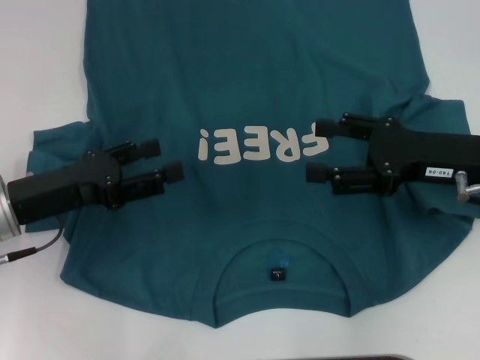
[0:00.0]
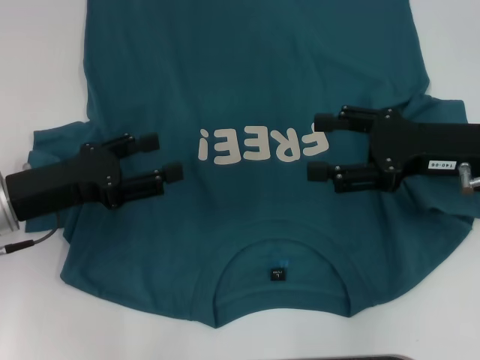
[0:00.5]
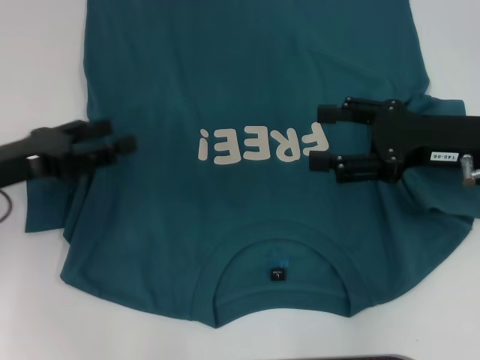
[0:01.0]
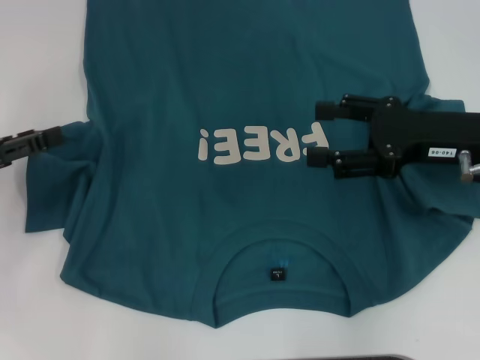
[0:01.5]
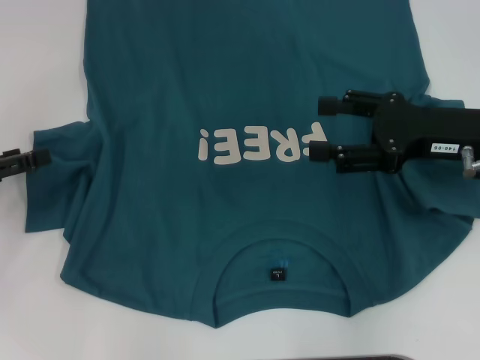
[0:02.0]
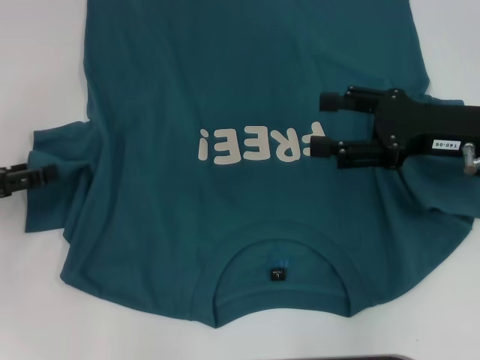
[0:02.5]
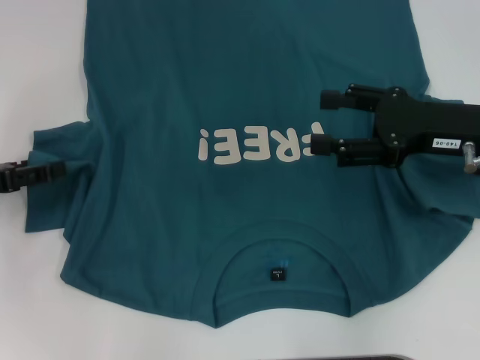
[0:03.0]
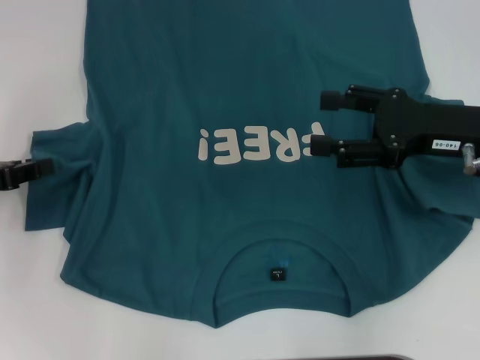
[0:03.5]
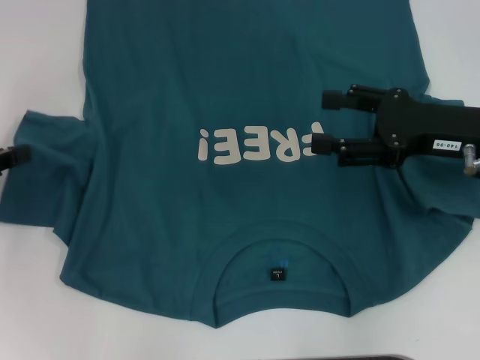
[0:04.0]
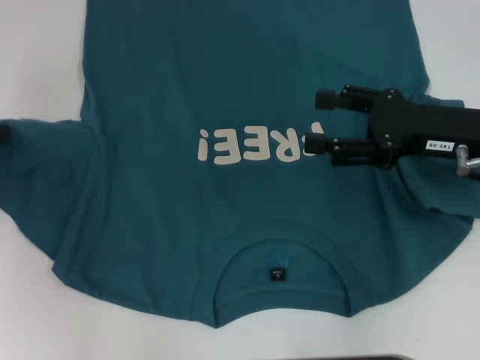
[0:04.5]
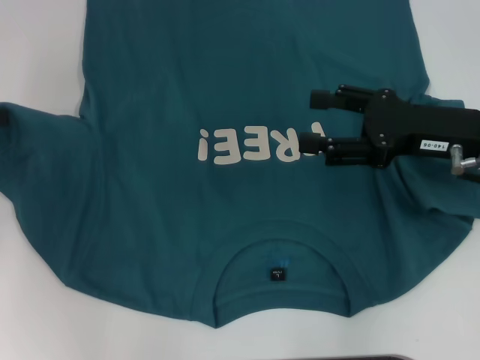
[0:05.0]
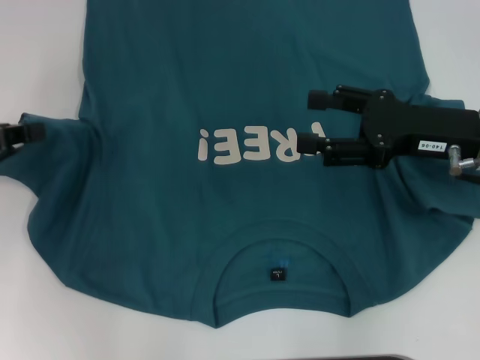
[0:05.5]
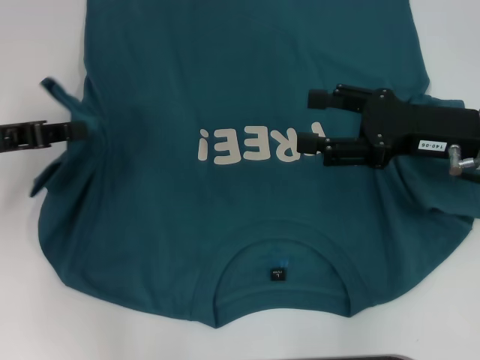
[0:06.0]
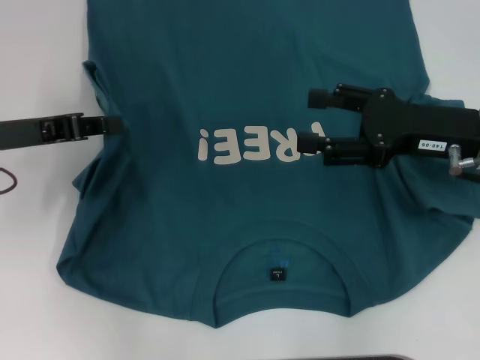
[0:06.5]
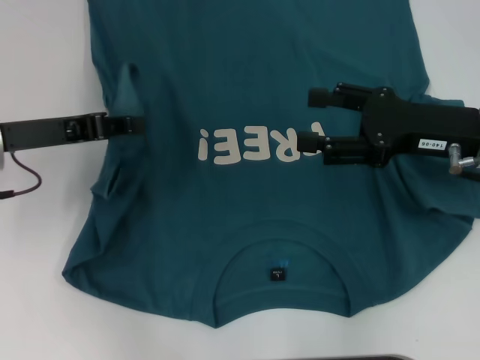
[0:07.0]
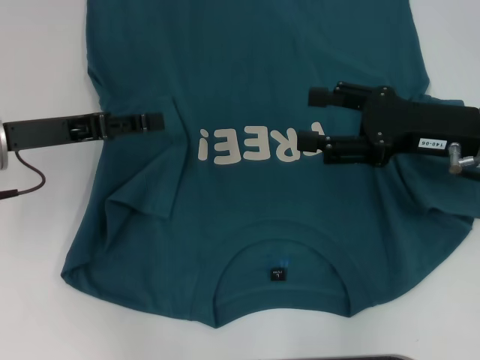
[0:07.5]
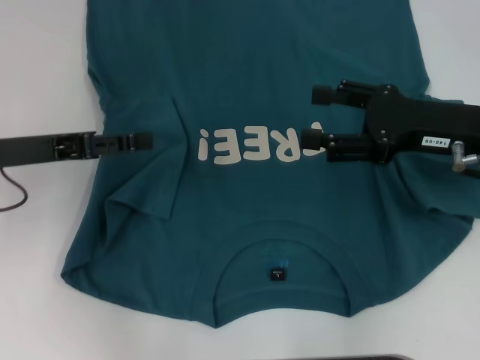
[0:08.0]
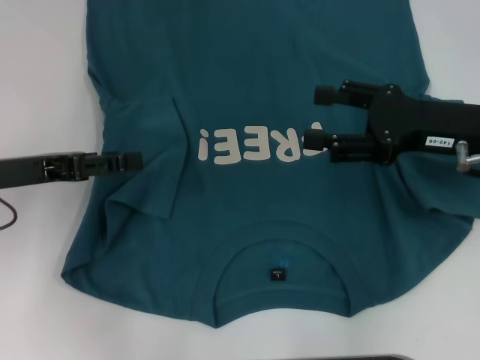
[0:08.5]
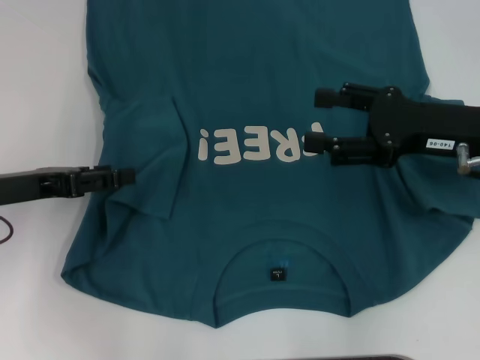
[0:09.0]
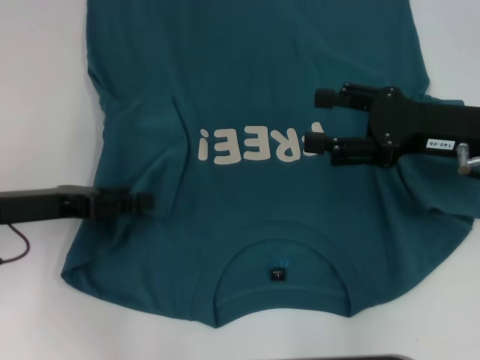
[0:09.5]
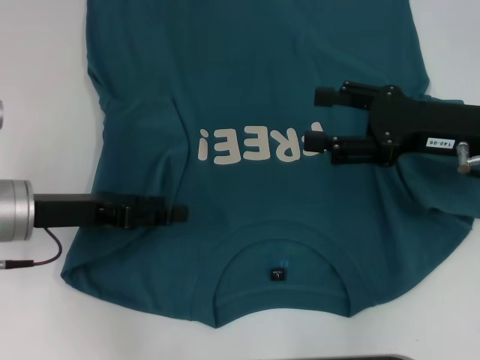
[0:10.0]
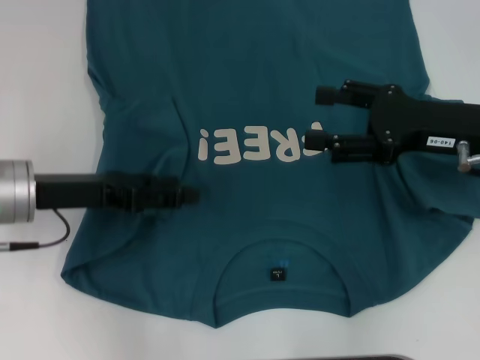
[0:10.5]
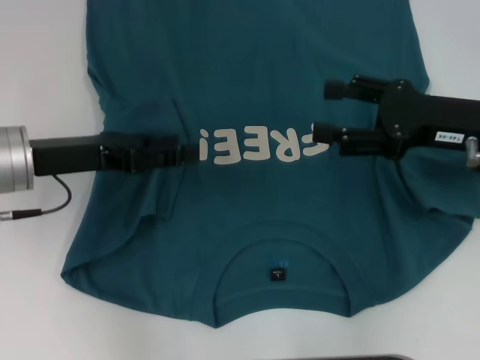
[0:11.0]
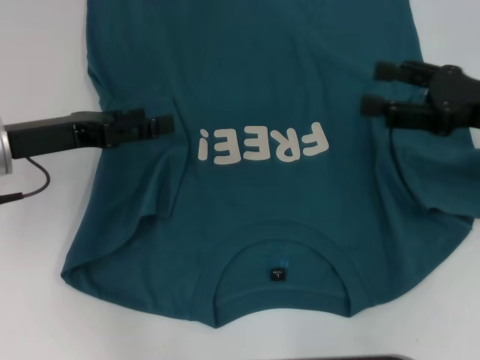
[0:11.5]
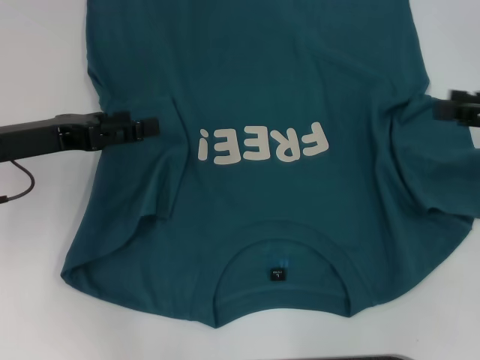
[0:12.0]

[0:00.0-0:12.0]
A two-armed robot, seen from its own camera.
Step, 0:00.0 to 0:10.0: Fold the bottom left sleeve with your left hand.
0:00.0 to 0:02.0: The left gripper shifts approximately 10 cm to the left.
0:02.0 to 0:04.0: The left gripper closes up.
0:04.0 to 0:06.0: The left gripper is displaced to the right by some 5 cm.
0:06.0 to 0:08.0: The left gripper opens up.
0:08.0 to 0:10.0: The left gripper moves about 5 cm.
0:10.0 to 0:12.0: The left gripper moves roughly 5 cm, while the right gripper heads to the right, covering roughly 10 cm.

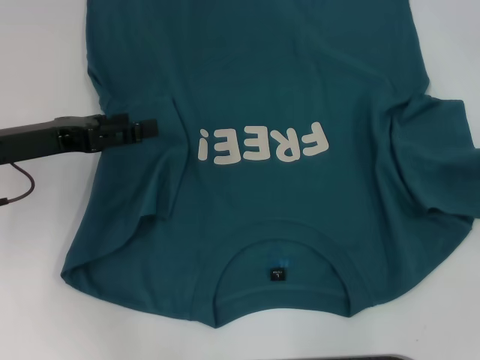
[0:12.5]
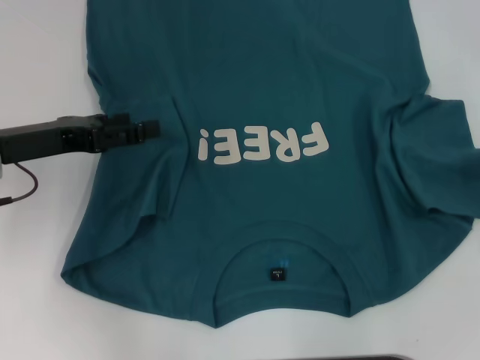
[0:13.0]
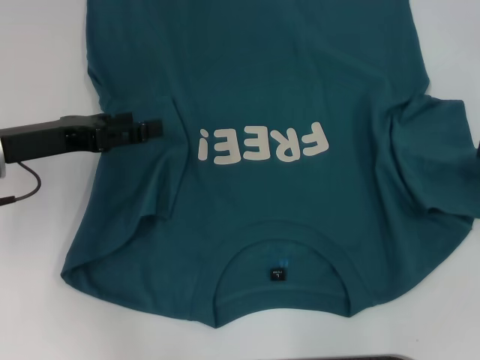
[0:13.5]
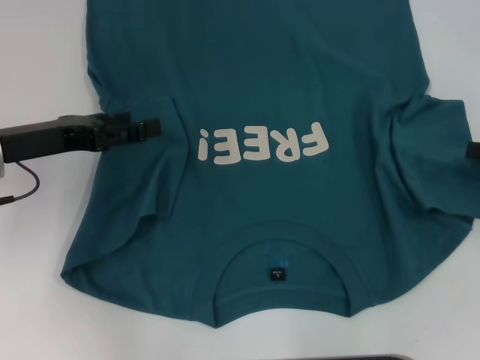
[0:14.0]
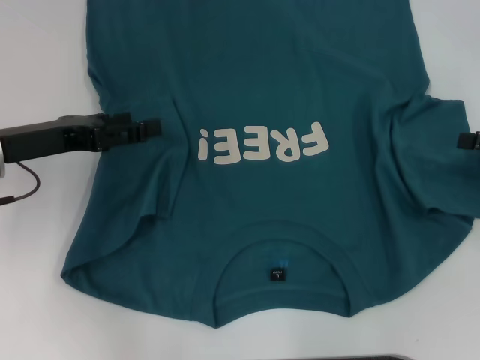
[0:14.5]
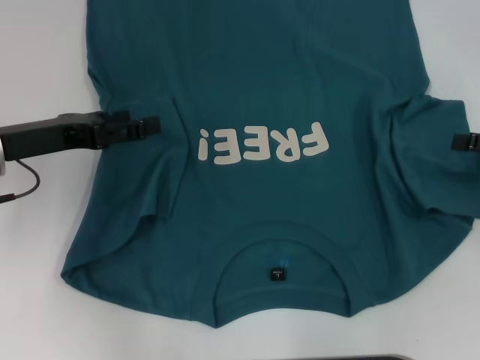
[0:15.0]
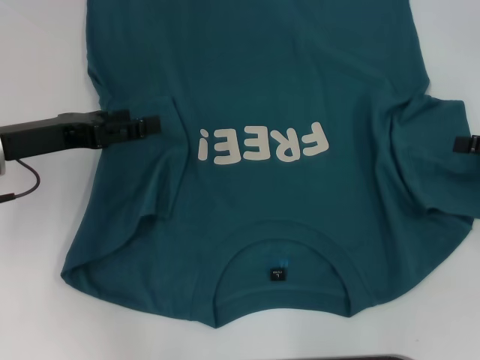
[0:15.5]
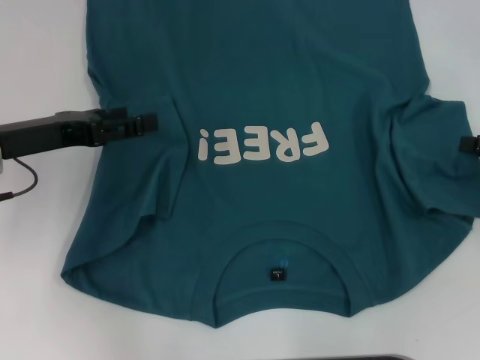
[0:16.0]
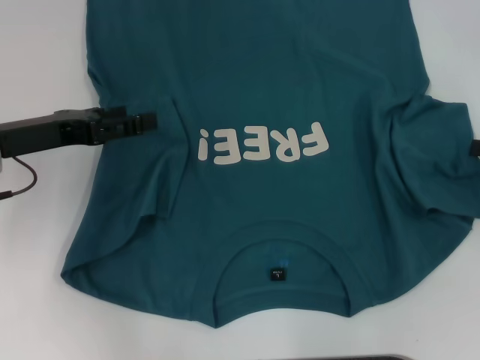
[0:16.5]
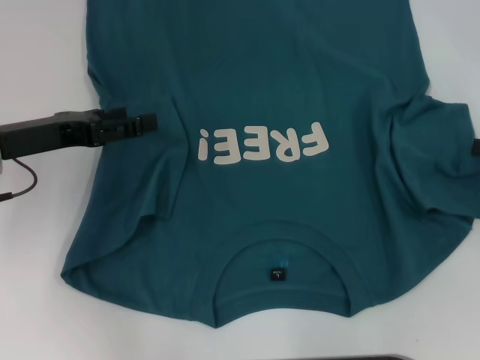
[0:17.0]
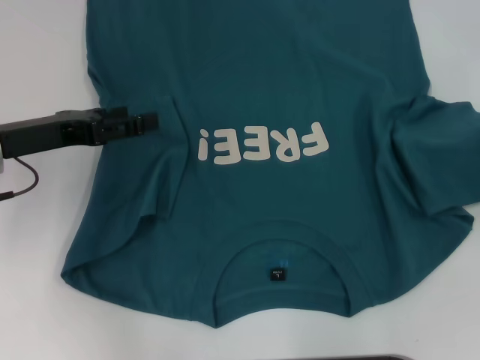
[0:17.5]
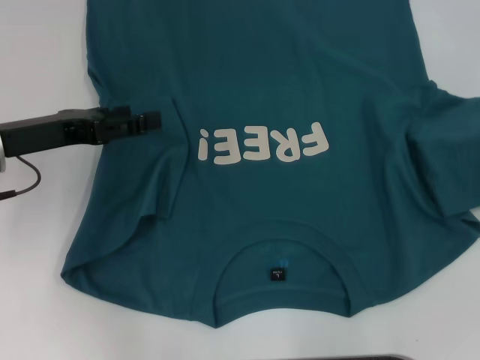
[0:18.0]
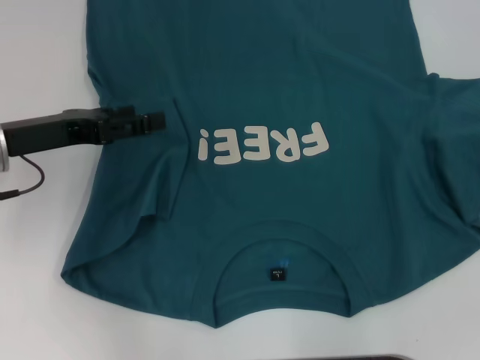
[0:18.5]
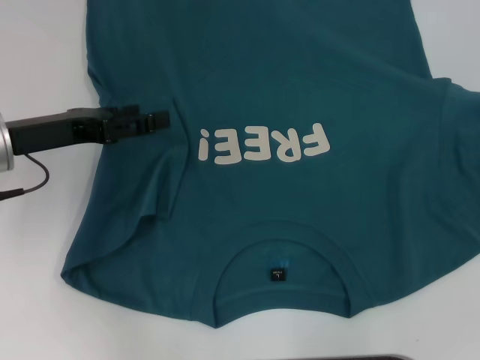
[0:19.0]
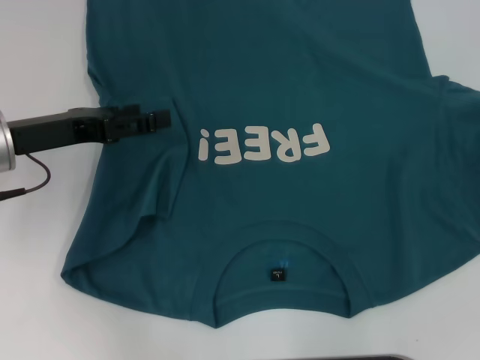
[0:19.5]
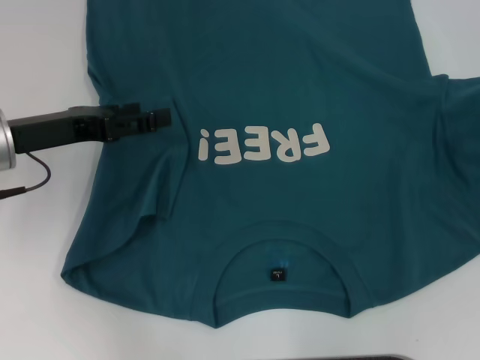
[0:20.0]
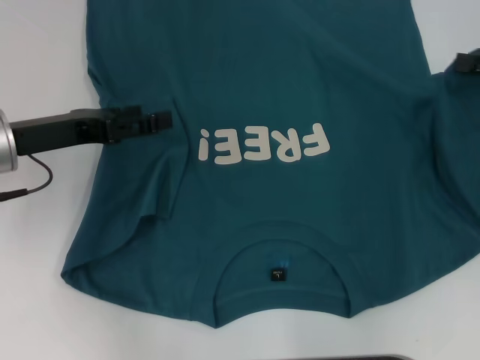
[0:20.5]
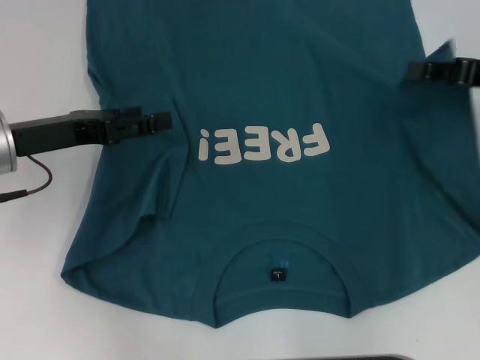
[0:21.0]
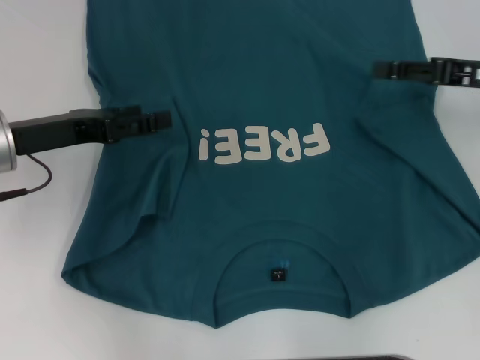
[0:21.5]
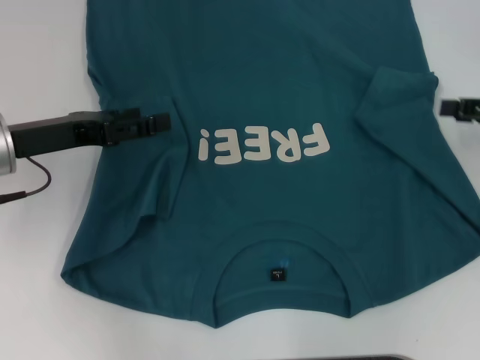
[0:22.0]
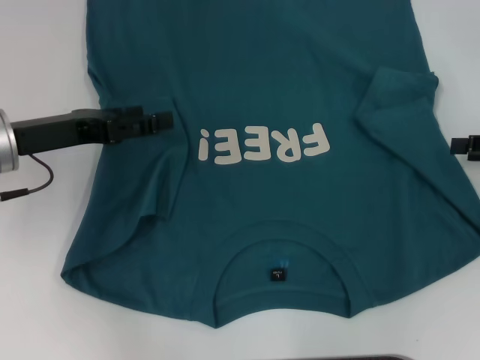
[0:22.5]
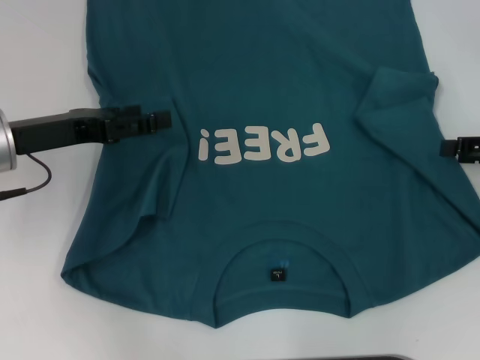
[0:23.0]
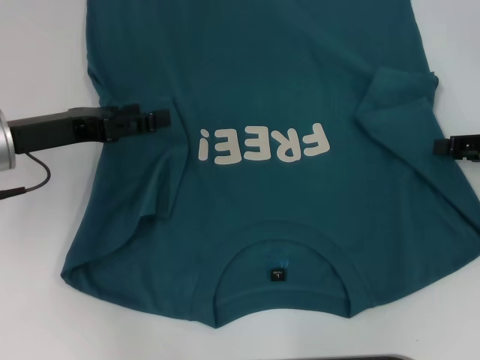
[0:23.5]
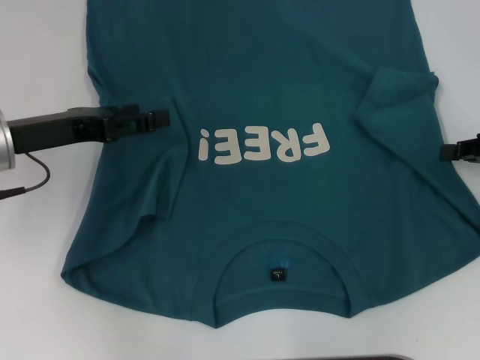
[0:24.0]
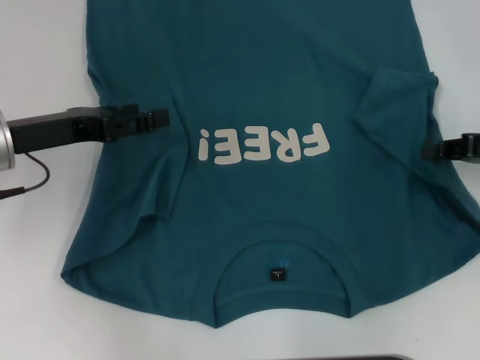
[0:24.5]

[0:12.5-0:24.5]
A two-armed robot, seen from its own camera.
0:16.5 to 0:18.5: The right gripper moves about 5 cm.
0:18.5 to 0:20.5: The right gripper goes about 5 cm to the left.
0:20.5 to 0:22.5: The right gripper shifts by approximately 5 cm, and opens.
0:22.5 to 0:24.5: The right gripper closes up.

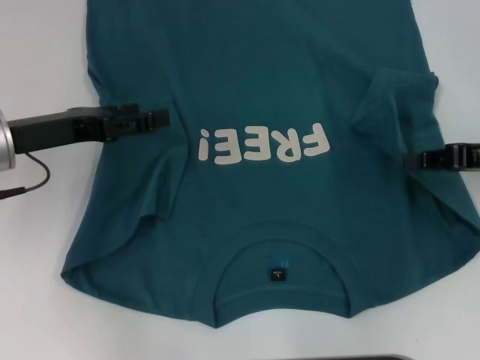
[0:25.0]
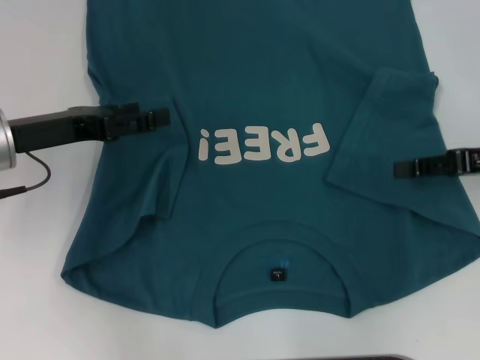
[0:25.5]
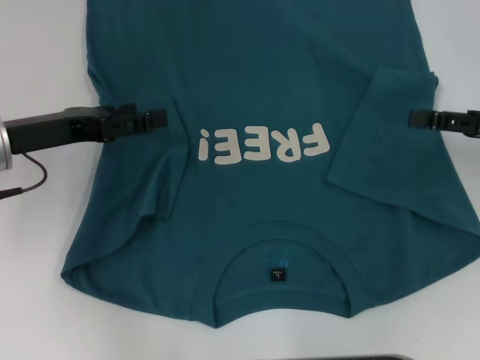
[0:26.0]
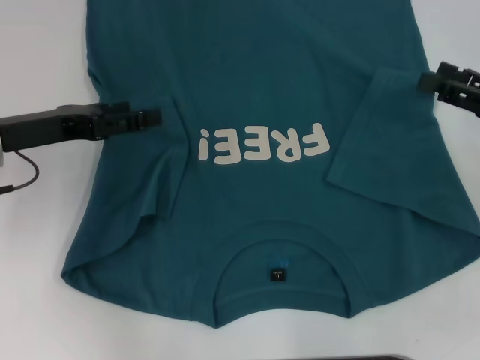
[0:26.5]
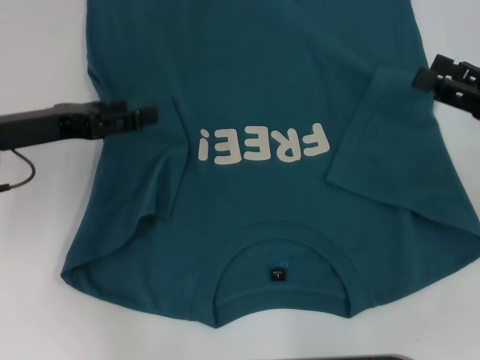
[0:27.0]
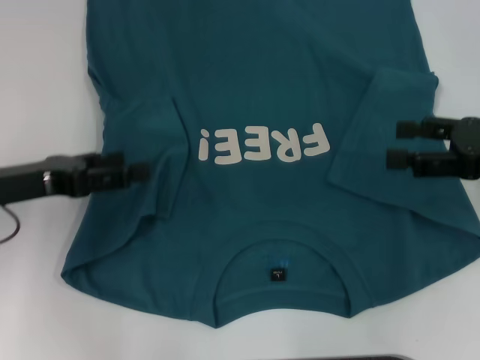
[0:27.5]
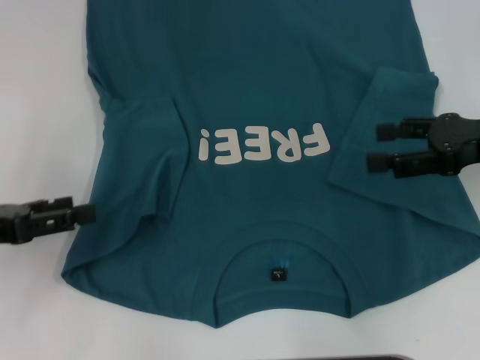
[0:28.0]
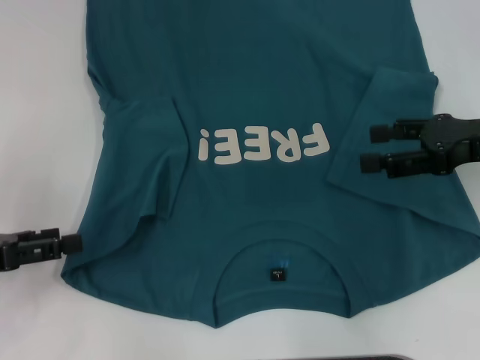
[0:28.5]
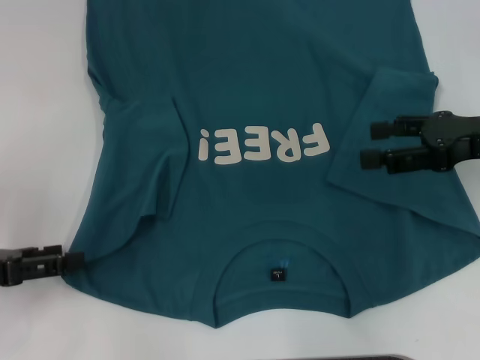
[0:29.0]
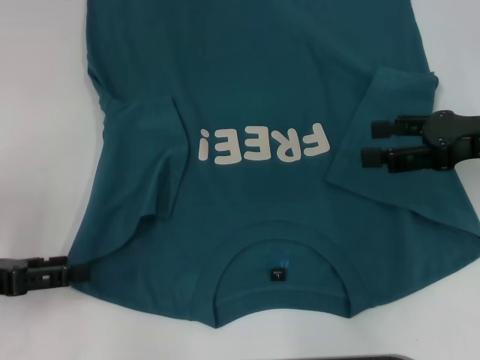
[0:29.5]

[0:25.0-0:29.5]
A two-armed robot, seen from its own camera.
0:25.0 to 0:27.0: The right gripper opens.
0:27.0 to 0:29.5: The left gripper goes about 15 cm backward and to the left.
